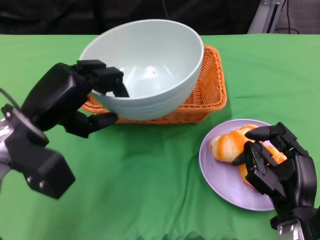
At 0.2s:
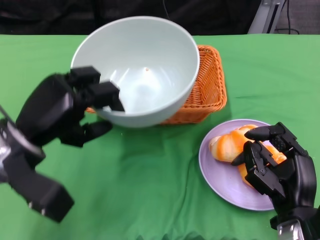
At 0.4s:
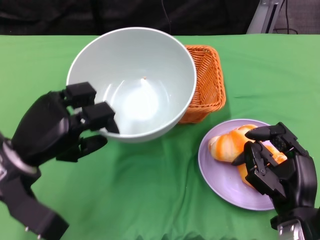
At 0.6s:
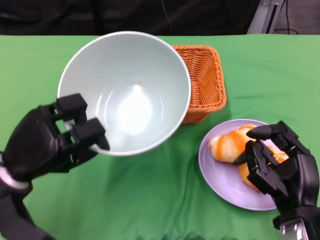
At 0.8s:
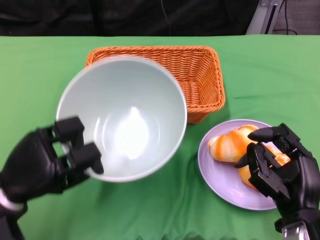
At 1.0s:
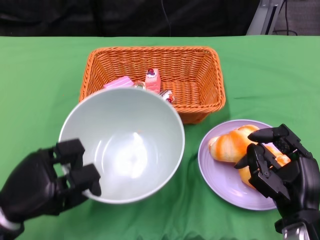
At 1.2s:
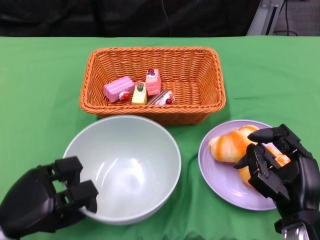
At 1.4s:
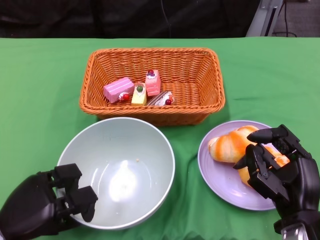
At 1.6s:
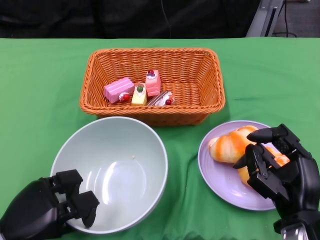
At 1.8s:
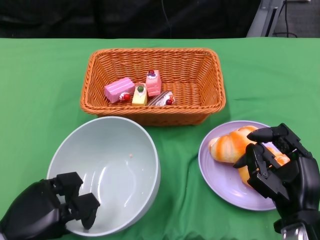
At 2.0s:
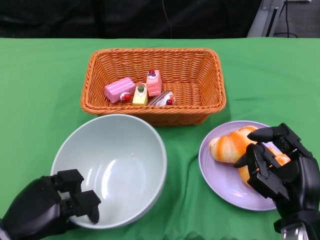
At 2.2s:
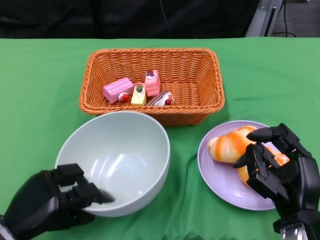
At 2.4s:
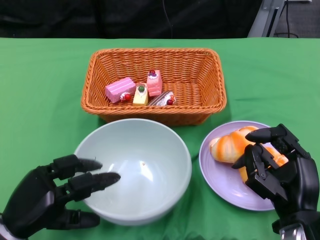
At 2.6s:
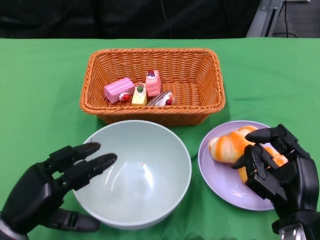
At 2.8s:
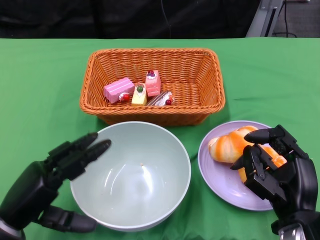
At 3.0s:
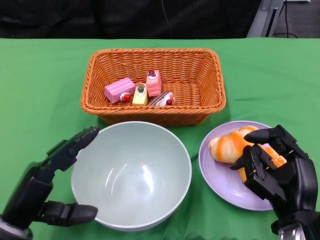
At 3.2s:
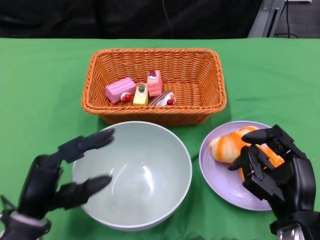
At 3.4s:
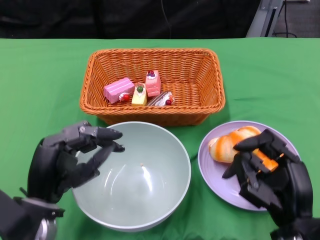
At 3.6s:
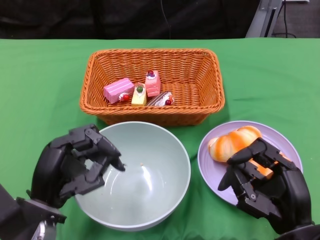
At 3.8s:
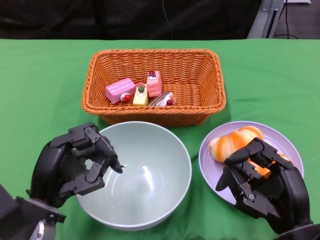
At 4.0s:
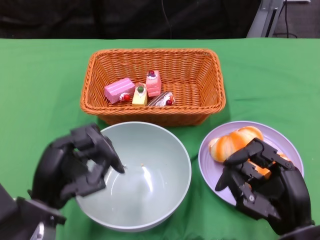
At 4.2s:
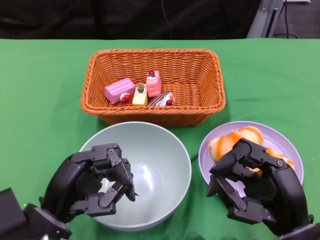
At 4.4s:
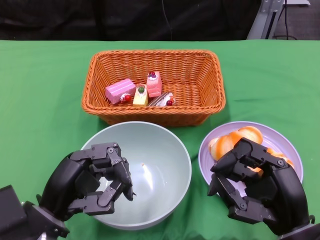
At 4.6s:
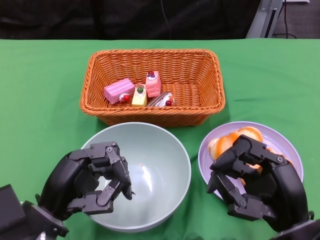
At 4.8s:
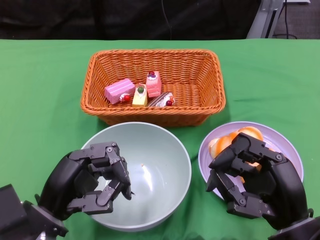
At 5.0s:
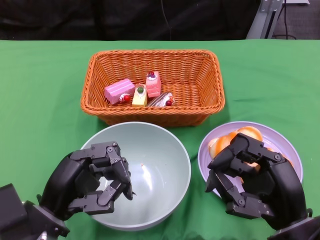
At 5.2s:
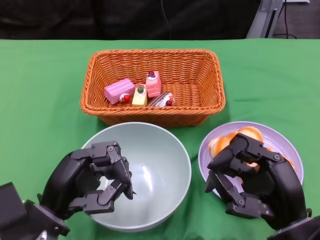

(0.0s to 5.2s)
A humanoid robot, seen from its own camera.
Step, 0.0s - 2.4s: Place the bowl on the table with the left gripper.
0.0s - 1.8s: The left hand travels downward and backward by roughly 15 cm.
1.8s - 3.4s: The left hand goes approximately 10 cm to the right and upward.

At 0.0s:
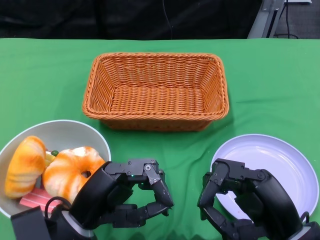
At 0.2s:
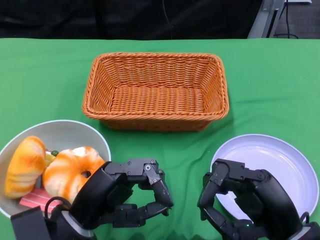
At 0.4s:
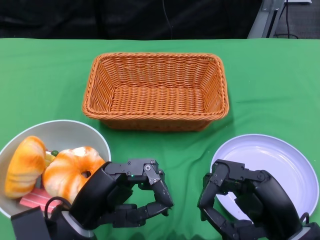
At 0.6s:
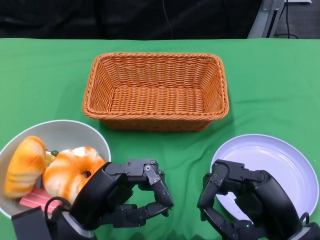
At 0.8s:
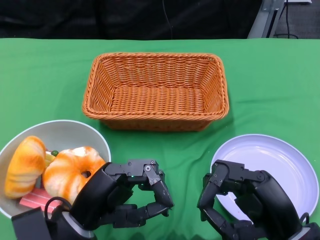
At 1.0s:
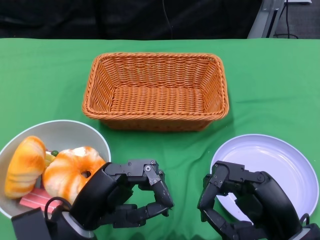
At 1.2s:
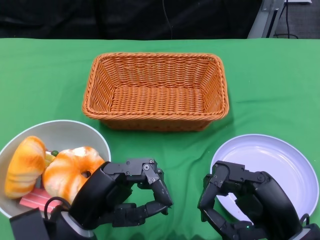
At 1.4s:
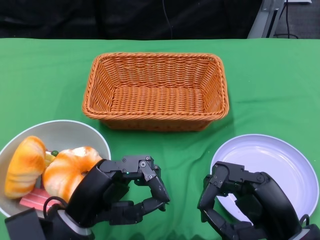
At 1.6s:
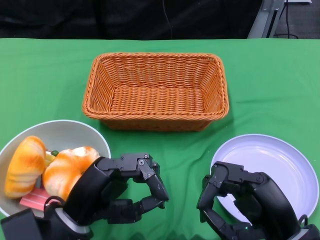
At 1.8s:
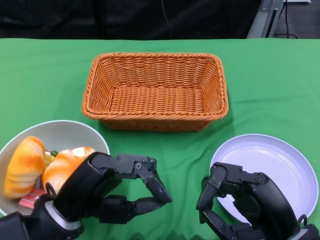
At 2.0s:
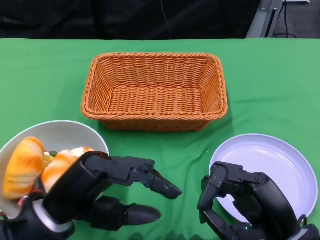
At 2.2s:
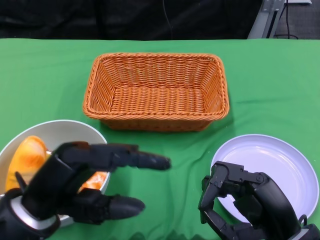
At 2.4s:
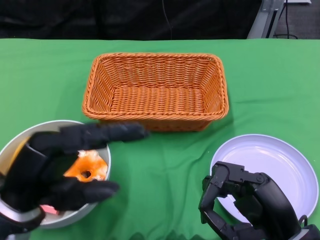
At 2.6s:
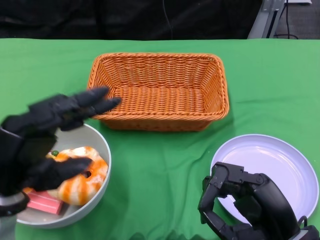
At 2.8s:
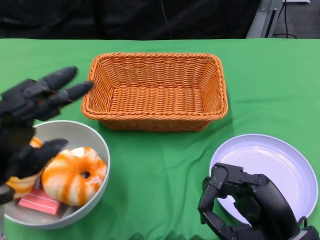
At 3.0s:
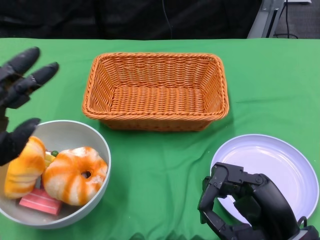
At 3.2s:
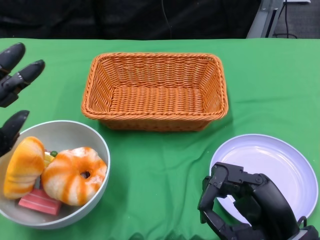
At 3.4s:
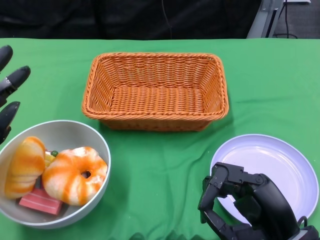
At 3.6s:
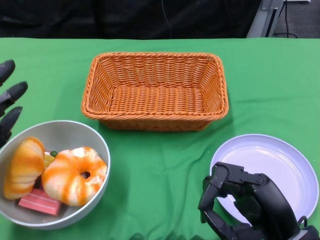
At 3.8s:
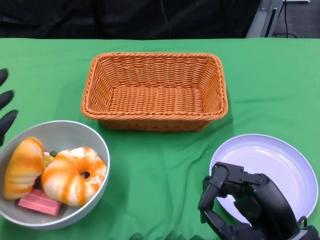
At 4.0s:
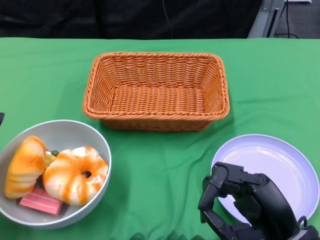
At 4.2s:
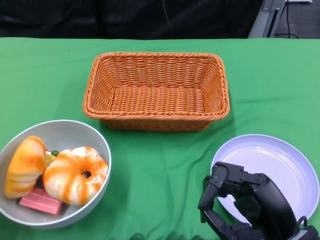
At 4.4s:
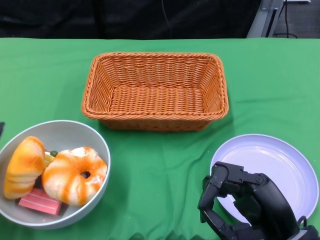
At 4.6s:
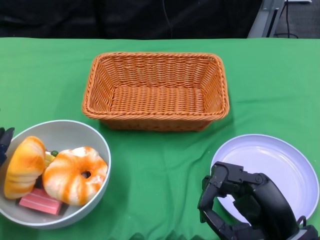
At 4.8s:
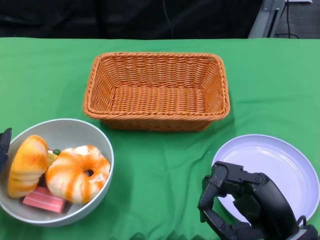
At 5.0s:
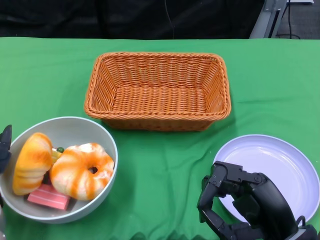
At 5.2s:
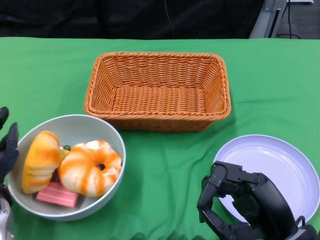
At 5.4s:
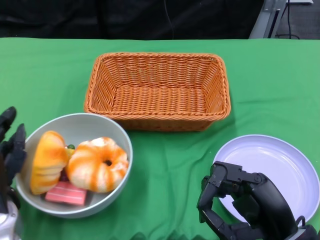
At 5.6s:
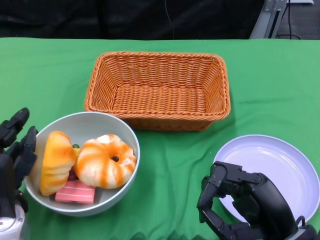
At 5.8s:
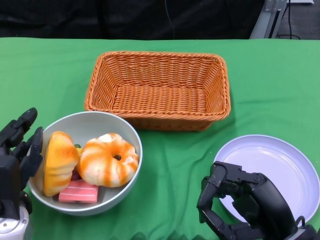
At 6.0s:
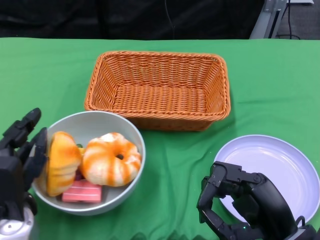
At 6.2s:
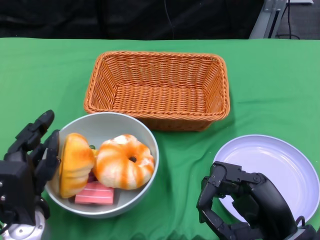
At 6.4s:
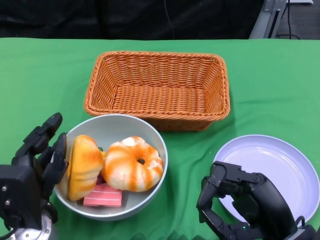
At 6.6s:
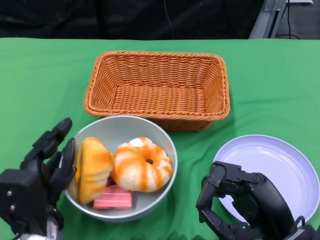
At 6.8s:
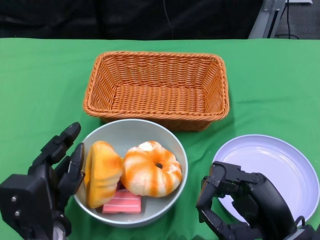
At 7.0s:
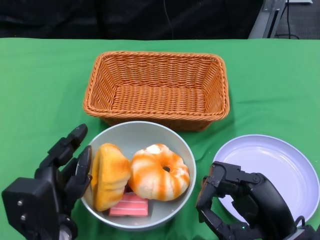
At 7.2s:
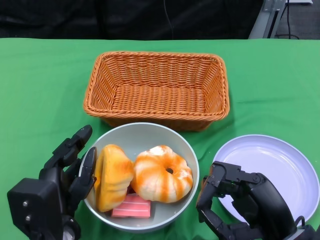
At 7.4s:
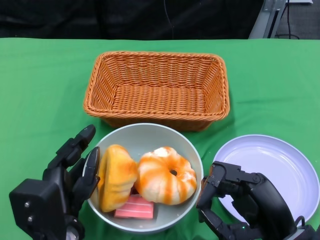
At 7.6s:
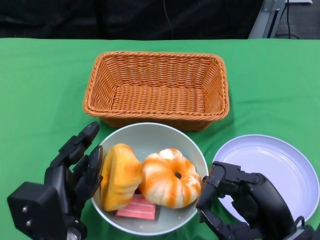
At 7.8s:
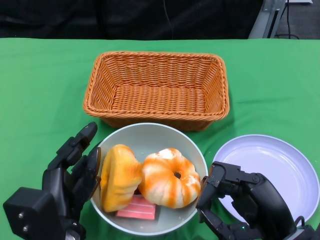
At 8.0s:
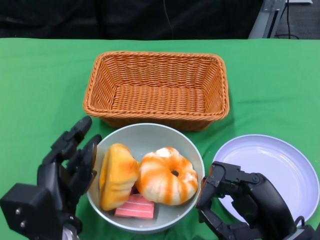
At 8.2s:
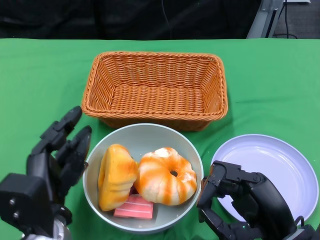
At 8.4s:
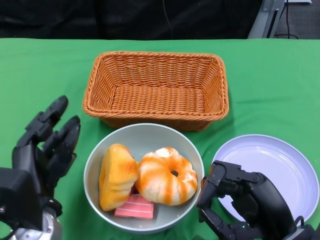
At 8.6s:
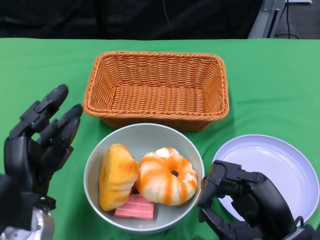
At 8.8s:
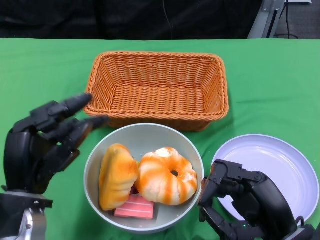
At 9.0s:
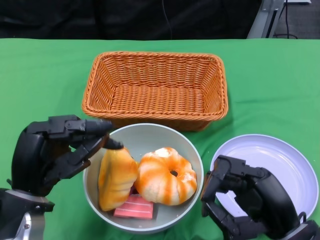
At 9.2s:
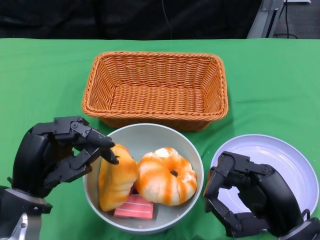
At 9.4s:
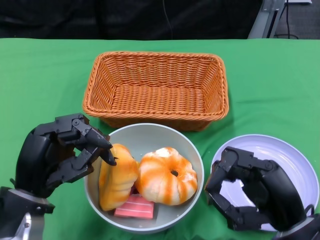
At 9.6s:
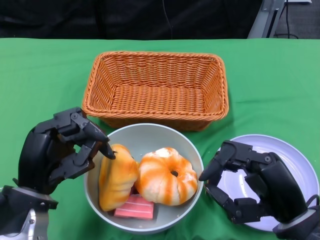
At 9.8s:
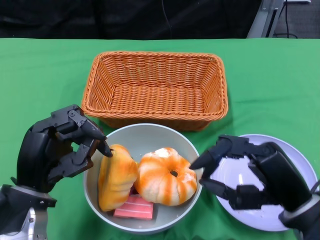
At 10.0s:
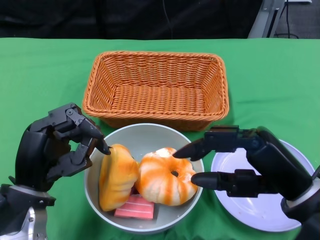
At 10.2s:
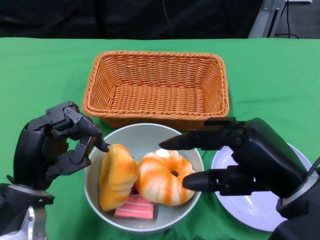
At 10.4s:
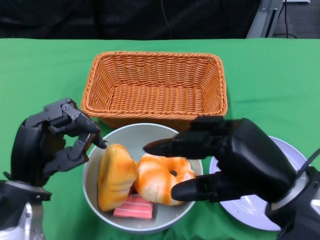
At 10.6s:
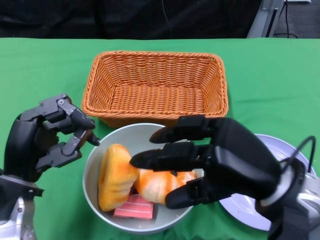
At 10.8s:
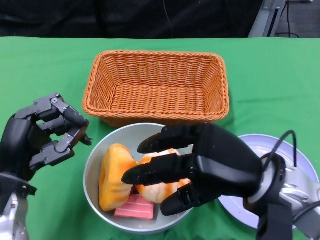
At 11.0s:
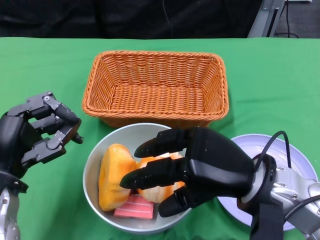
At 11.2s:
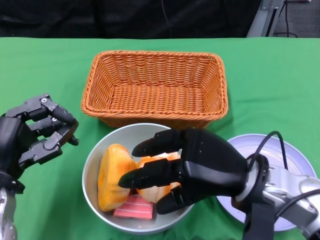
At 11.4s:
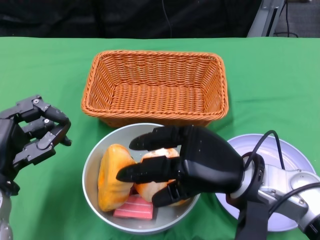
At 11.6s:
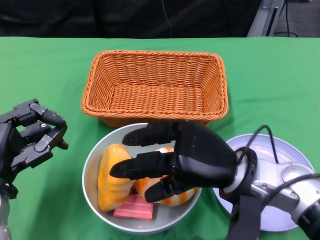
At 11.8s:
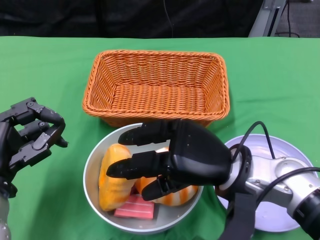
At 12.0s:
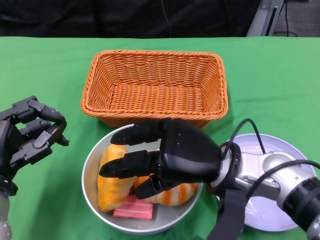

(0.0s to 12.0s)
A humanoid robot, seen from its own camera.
Step, 0.0s - 8.2s: Push the bowl to the center of the table using the left gripper.
1.6s - 3.0s: The left hand moves to the left and upward, approximately 10 cm.
3.0s - 4.4s: The left hand heads downward, covering some 10 cm.
4.4s - 6.0s: The left hand is displaced to the right by approximately 10 cm.
6.0s - 7.6s: The left hand travels to the right by roughly 5 cm.
7.6s - 9.0s: The left hand shifts about 5 cm to the left.
9.0s - 10.4s: The right hand travels upward by some 10 cm.
10.4s - 12.0s: The left hand moves roughly 5 cm, while the right hand travels to the left, forward and downward by roughly 10 cm.

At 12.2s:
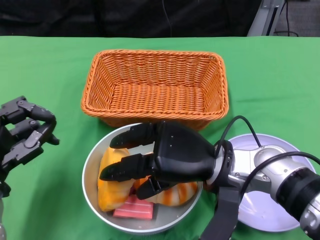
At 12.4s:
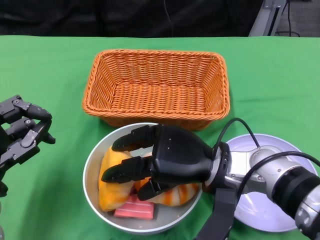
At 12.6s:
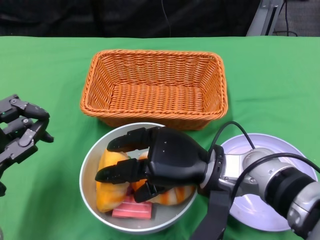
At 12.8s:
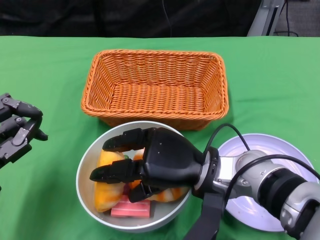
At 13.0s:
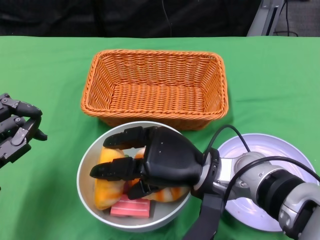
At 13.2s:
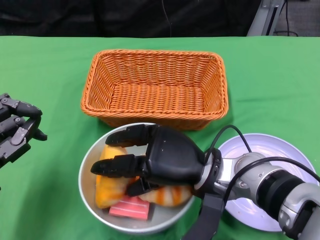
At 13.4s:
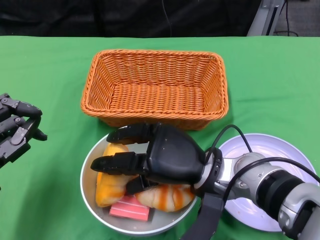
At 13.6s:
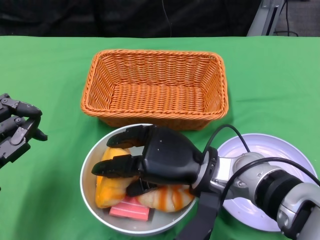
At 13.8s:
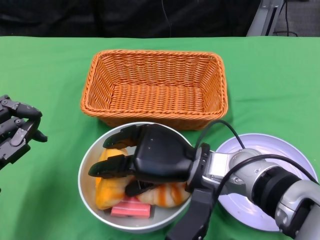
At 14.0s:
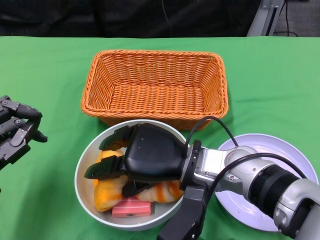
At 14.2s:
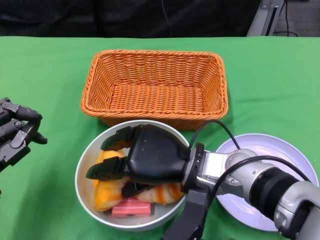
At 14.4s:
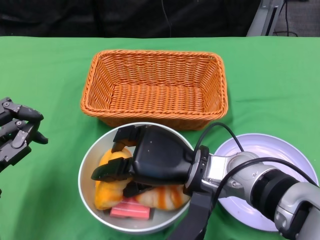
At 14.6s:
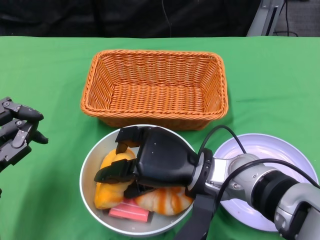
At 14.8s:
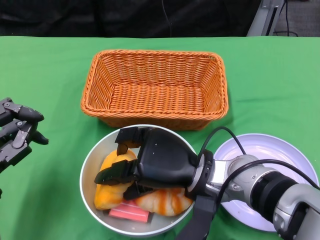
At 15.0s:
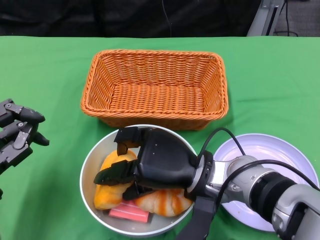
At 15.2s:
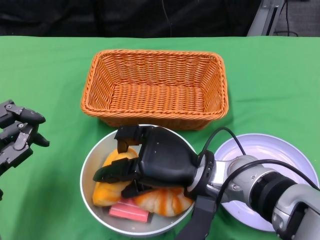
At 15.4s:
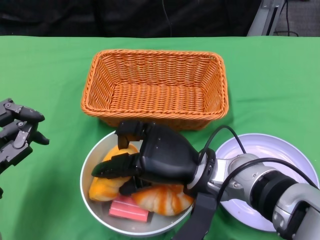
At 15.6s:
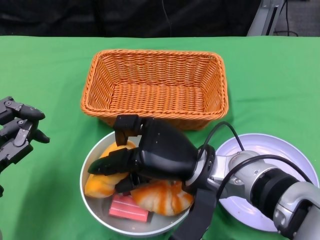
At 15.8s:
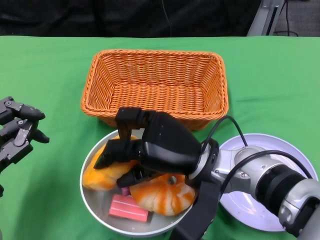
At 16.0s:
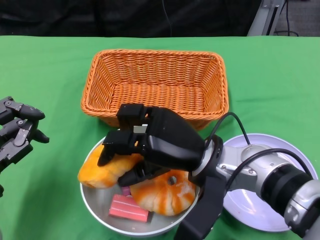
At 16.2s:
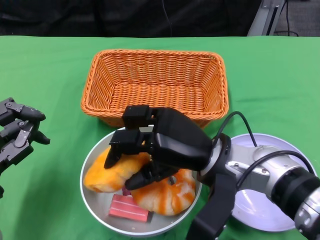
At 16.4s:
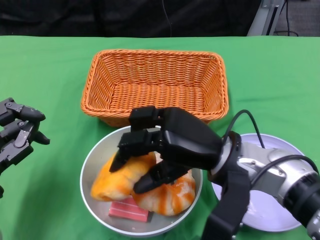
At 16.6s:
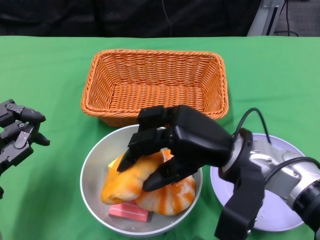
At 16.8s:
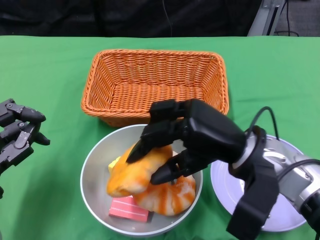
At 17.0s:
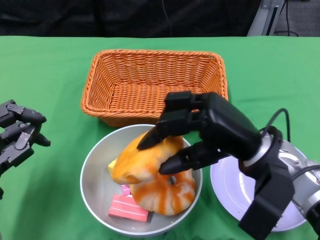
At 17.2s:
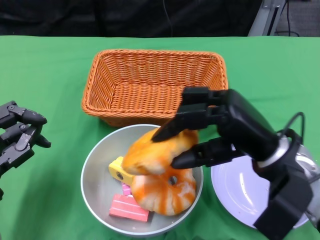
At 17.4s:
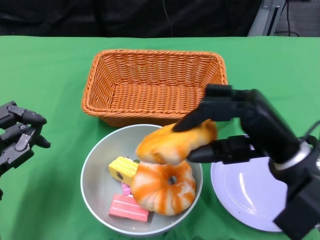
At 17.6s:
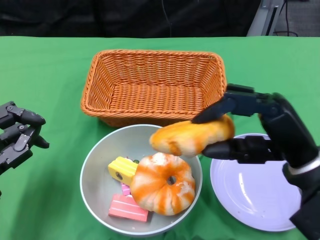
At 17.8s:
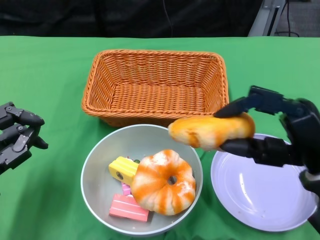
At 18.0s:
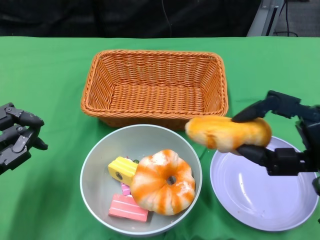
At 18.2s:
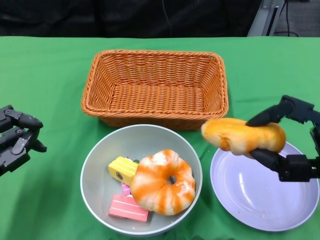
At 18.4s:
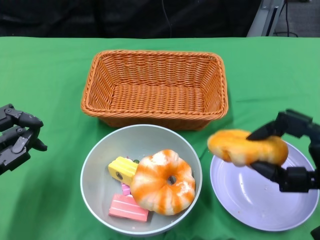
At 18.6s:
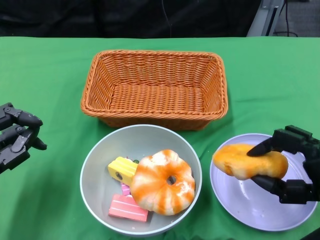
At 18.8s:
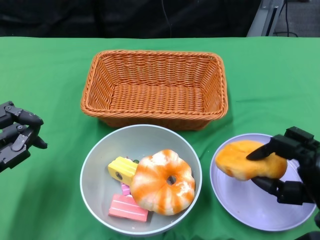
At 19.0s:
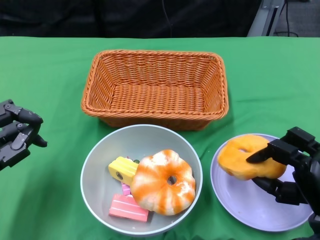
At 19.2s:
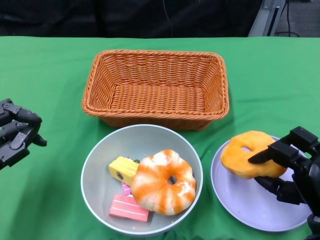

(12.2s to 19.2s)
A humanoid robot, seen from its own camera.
13.6s - 15.0s: The hands make only small movements.
15.0s - 16.4s: The right hand shifts by some 5 cm.
16.4s - 17.8s: The right hand moves to the right, roughly 10 cm.
17.8s - 19.2s: The right hand travels downward by about 10 cm.
